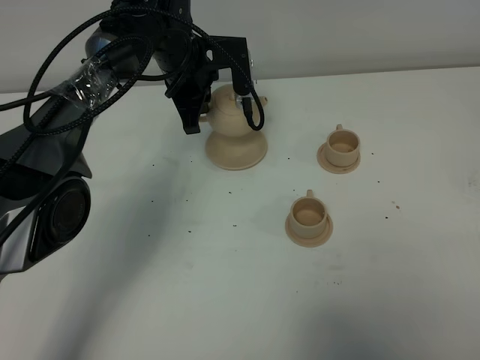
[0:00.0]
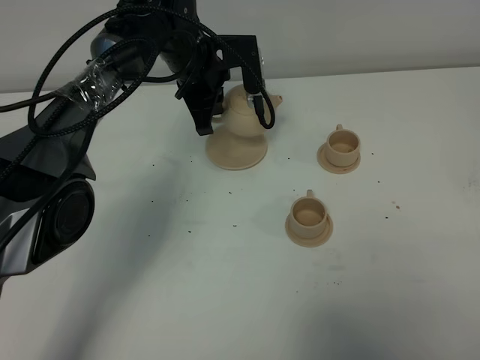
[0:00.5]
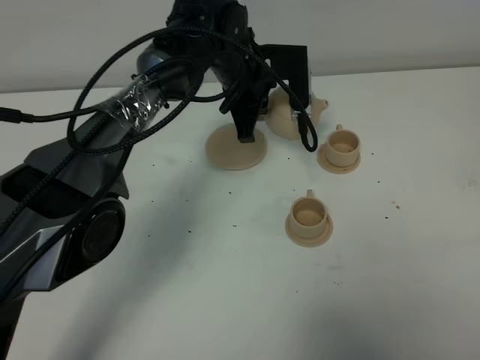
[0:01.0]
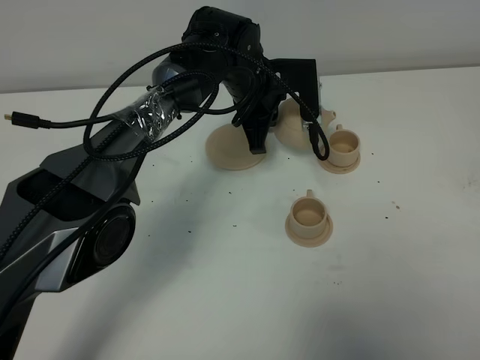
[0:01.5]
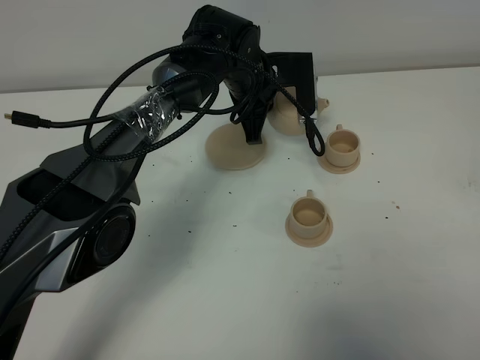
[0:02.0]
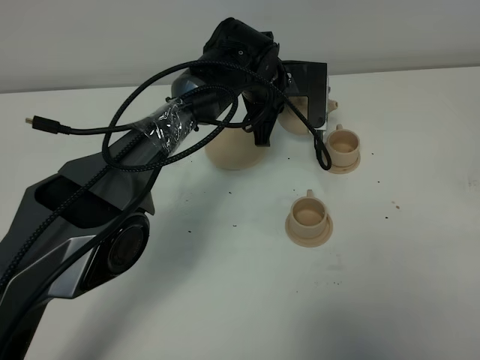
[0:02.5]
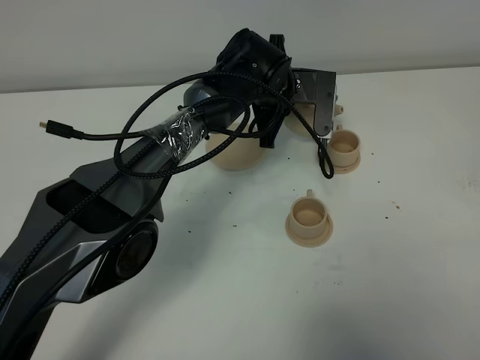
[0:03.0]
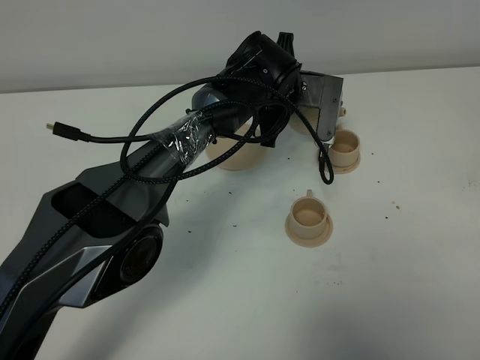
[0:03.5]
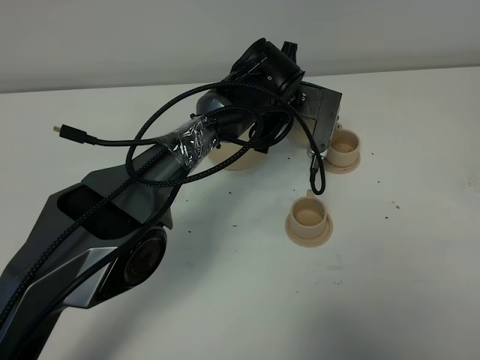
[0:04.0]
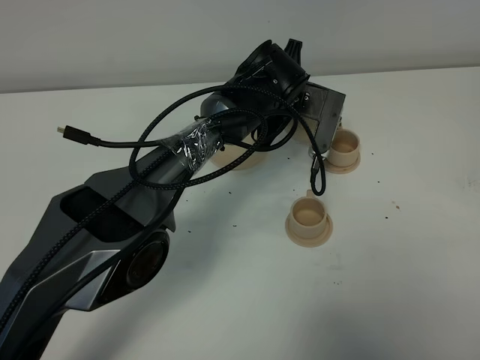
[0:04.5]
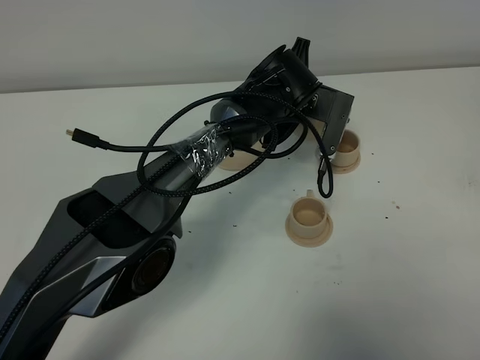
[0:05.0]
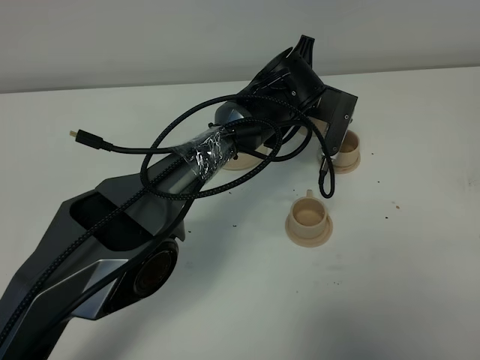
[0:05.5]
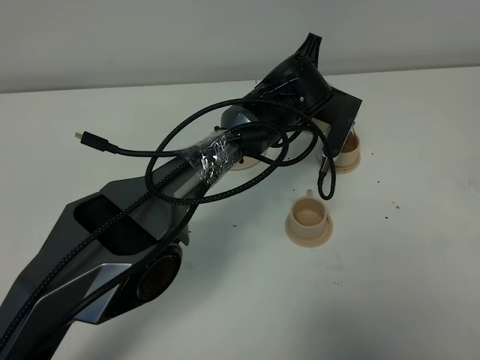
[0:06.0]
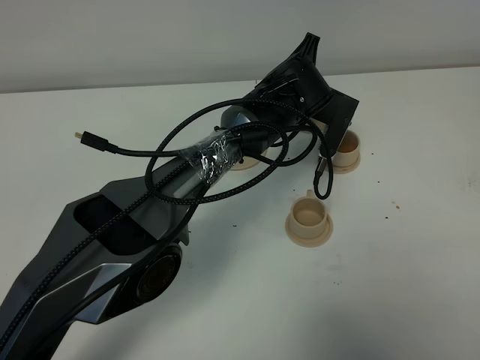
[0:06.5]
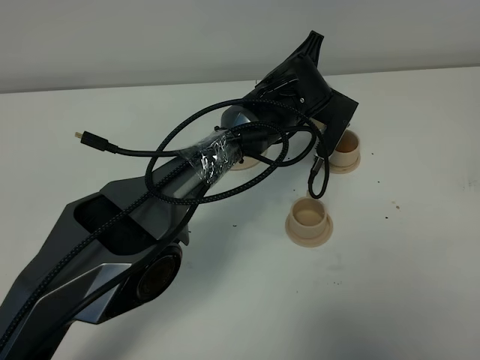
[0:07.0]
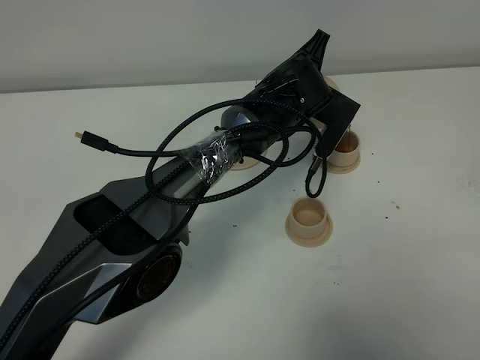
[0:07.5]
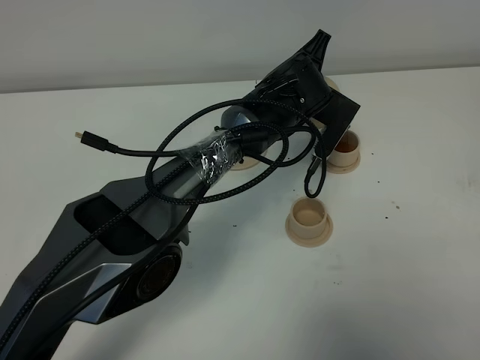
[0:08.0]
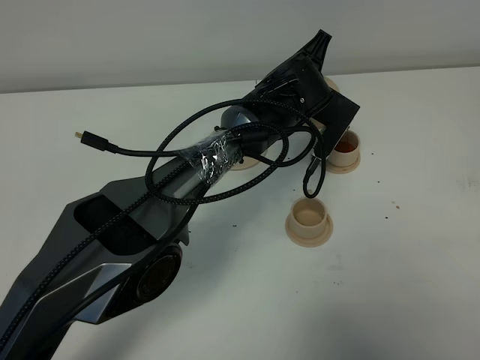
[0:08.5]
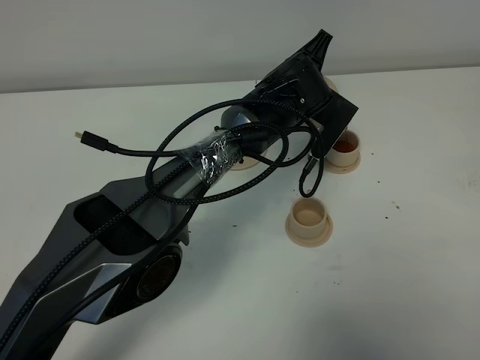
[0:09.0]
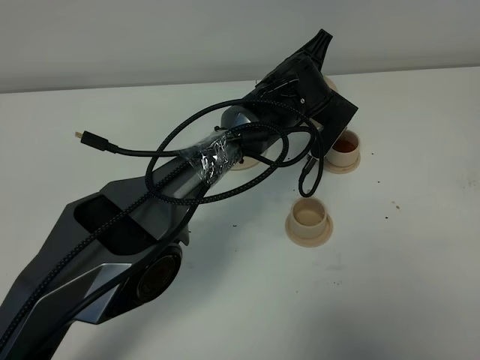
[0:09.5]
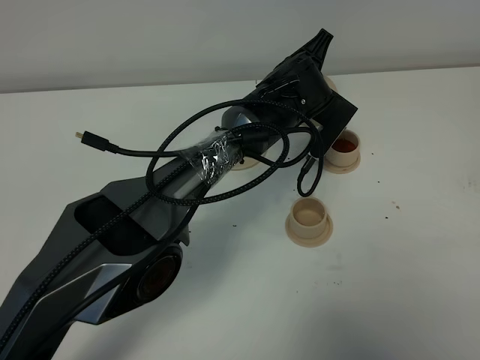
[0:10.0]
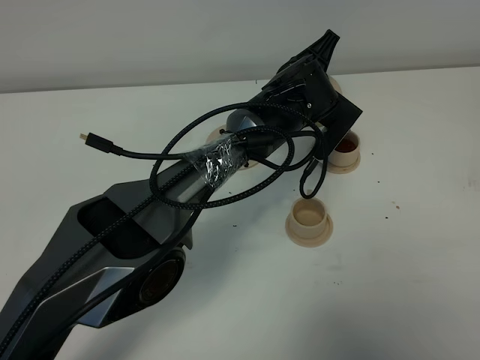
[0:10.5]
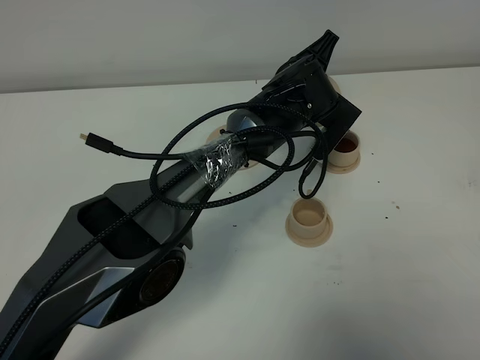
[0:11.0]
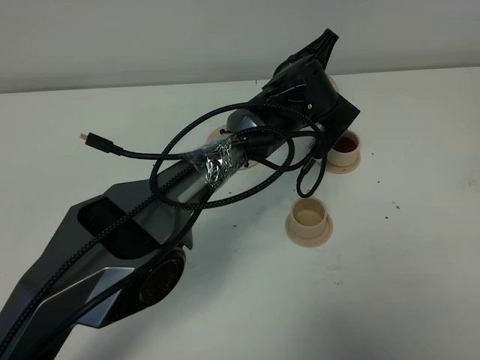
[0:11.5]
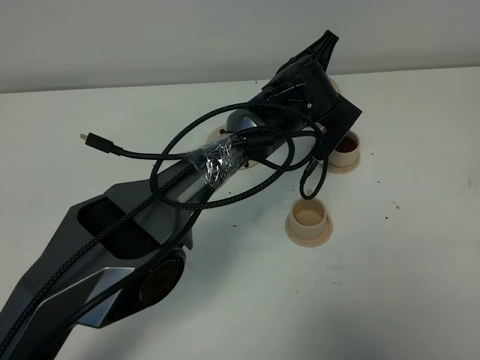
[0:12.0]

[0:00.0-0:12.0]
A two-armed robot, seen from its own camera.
Task of the whole recording: grasp the brown teapot and pour the tea into the two brown teacups one by one, put the brown teapot back in its original place.
0:00.0 to 0:02.0: The left gripper moves to the right, some 10 cm.
0:02.0 to 0:04.0: The left gripper shifts by about 5 cm.
0:04.0 to 0:06.0: The grippers stay close to where they were, moving slightly.
0:06.0 to 0:08.0: The grippers move only a little.
0:08.0 to 0:10.0: Neither gripper changes place.
0:10.0 to 0:12.0: The two grippers keep their place.

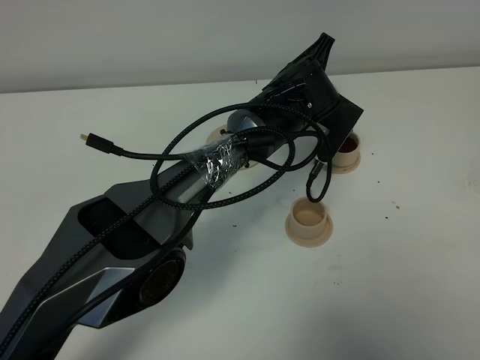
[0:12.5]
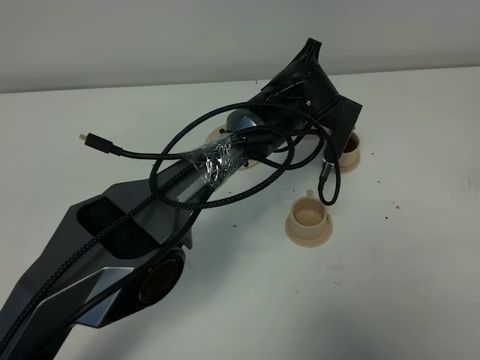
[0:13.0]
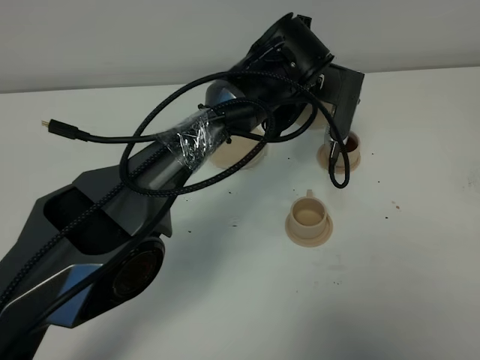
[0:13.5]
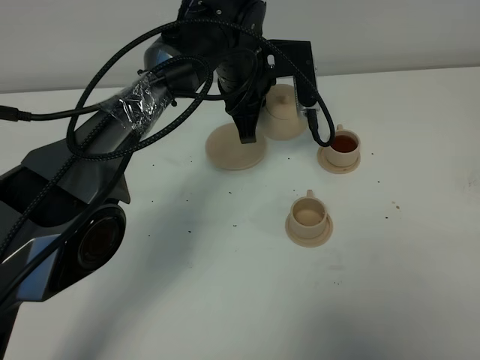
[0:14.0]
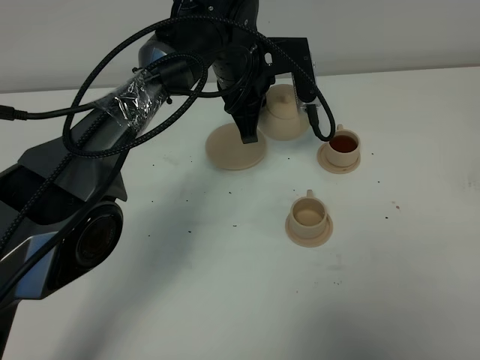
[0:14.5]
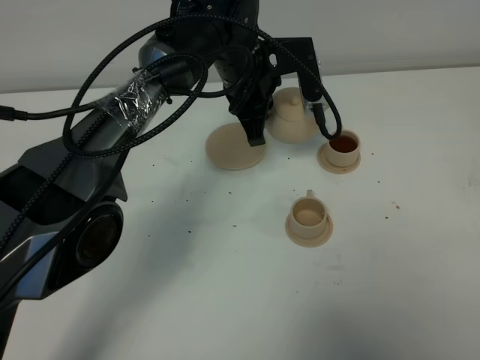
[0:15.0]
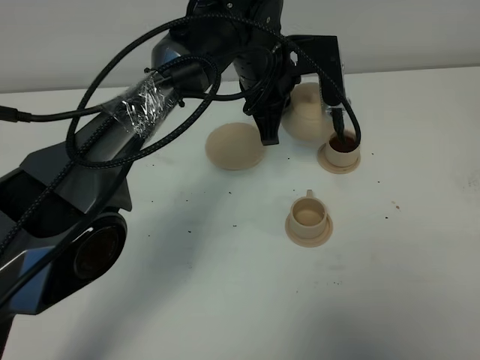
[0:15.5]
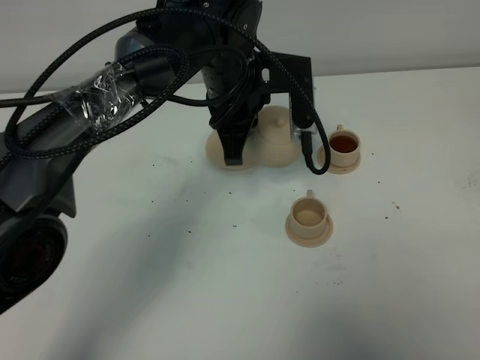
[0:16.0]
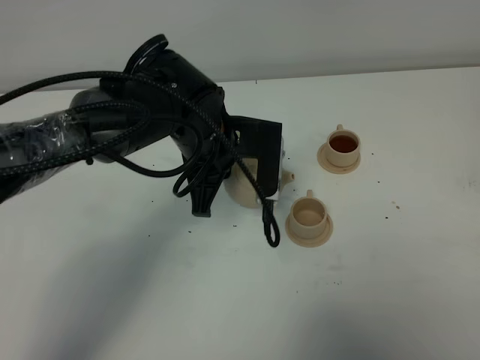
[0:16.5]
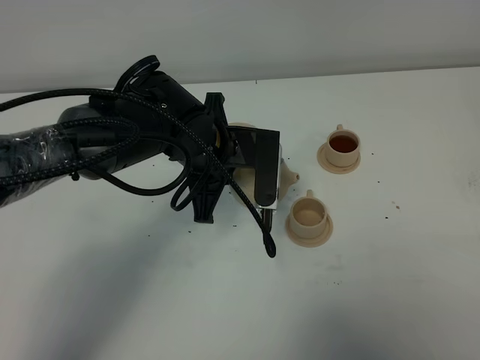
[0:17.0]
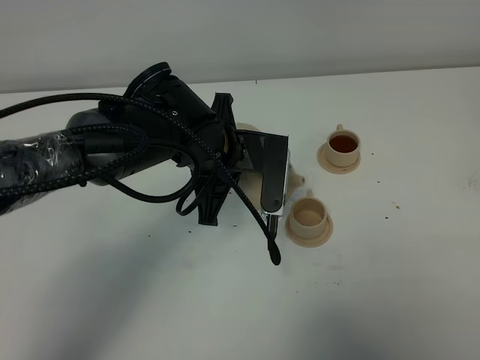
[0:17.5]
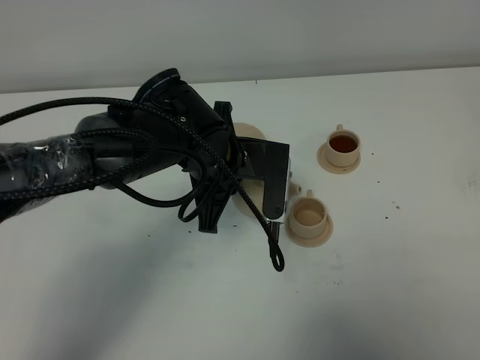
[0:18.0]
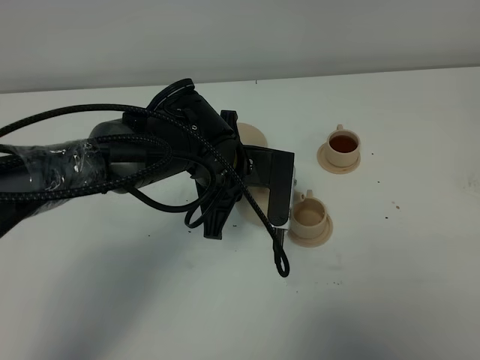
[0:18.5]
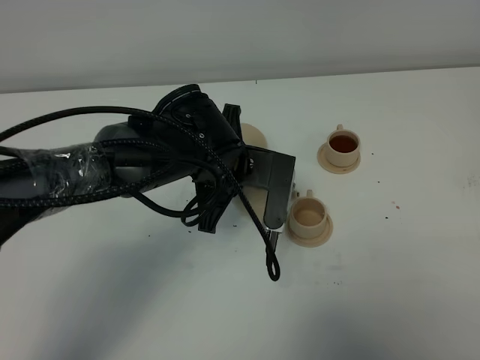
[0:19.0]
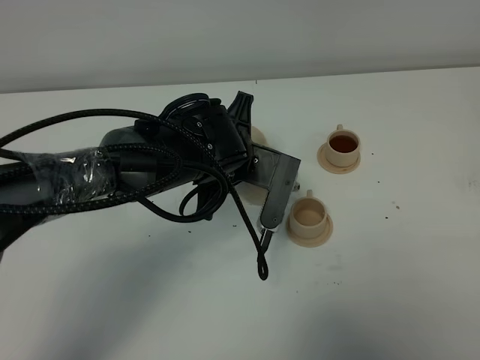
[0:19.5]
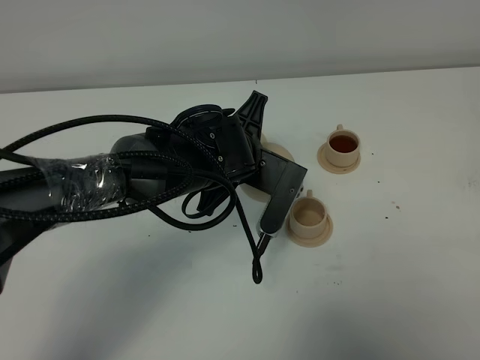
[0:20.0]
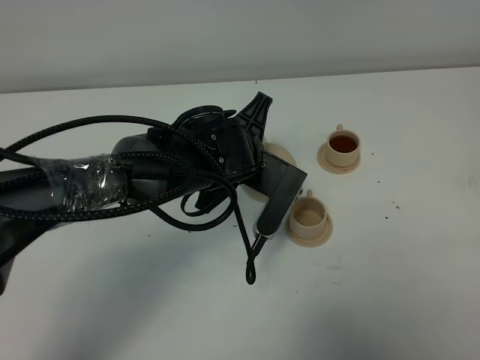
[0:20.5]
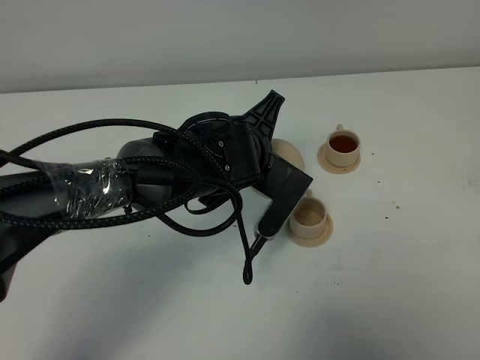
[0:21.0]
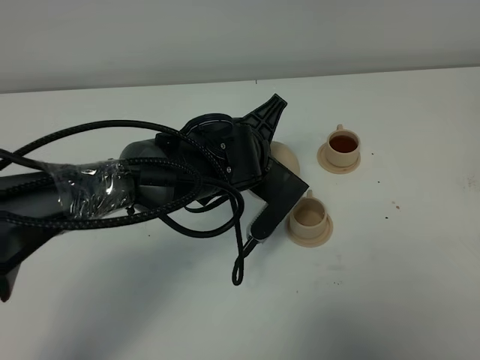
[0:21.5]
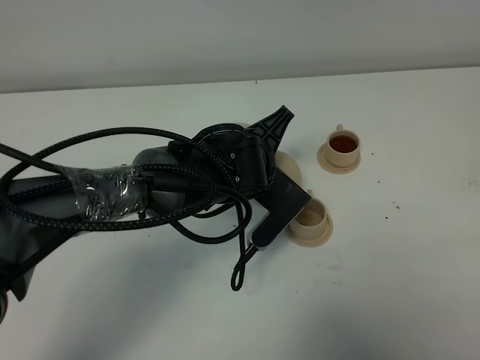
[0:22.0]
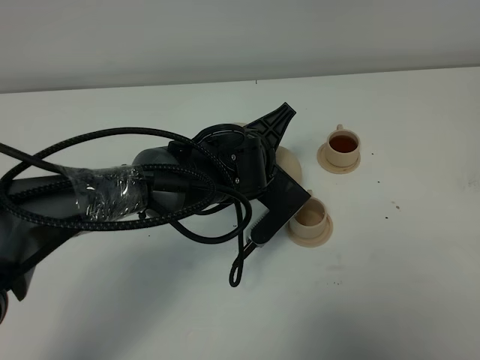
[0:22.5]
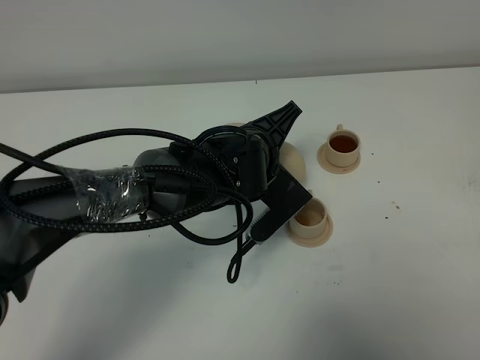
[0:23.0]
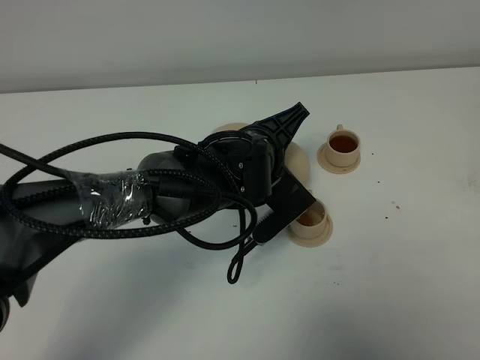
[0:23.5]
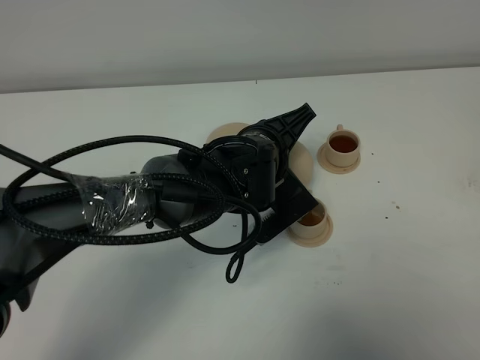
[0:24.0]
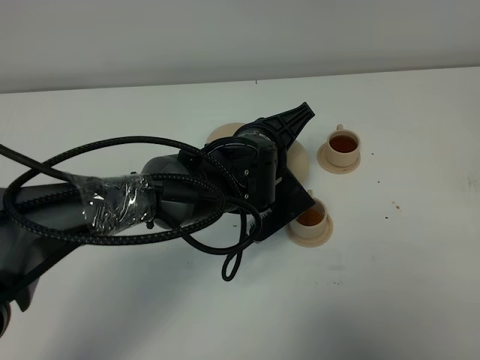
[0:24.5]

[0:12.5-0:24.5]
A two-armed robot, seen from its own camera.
Task of the whole recording: grasp the brown teapot and pour the tea into the two brown teacups one by one, put the brown teapot back in its original place.
0:12.5 to 0:14.5: The left gripper shifts approximately 10 cm to the left and upward.
0:14.5 to 0:16.5: The left gripper shifts approximately 10 cm backward.
0:16.5 to 0:18.5: There are only small adjustments of the grippers.
0:20.5 to 0:22.5: There are only small adjustments of the grippers.
0:22.5 to 0:24.5: There are only small adjustments of the grippers.

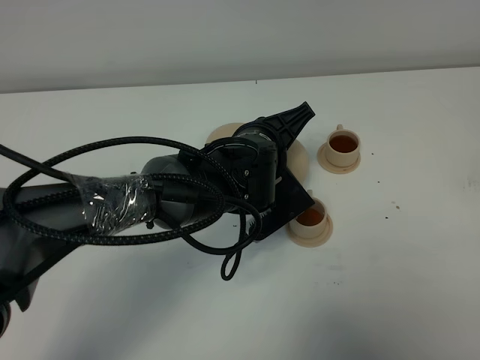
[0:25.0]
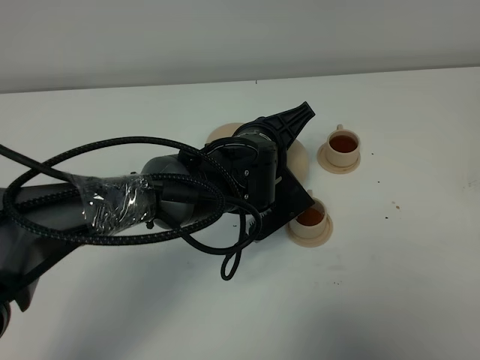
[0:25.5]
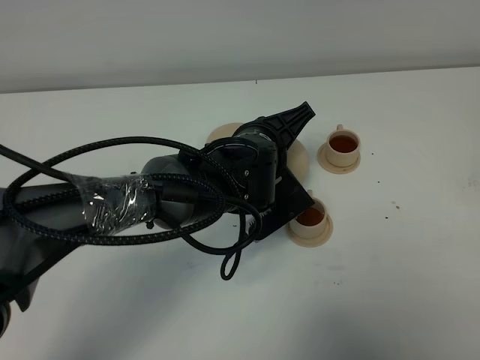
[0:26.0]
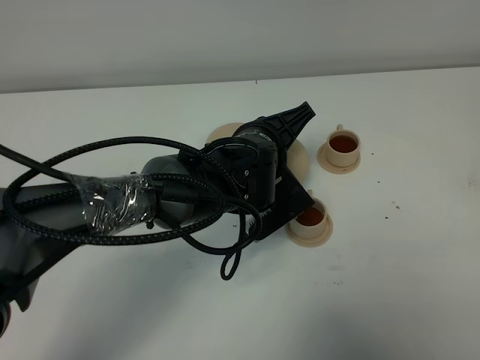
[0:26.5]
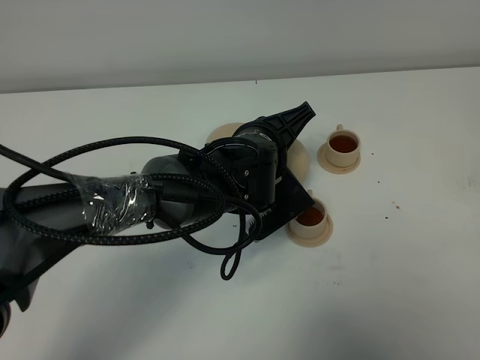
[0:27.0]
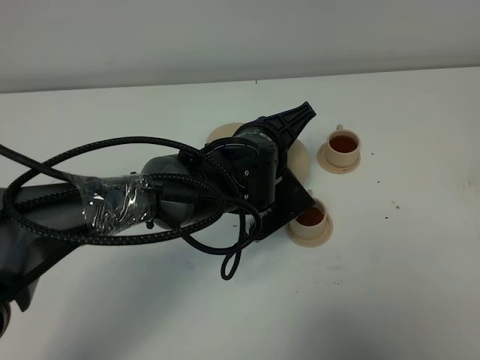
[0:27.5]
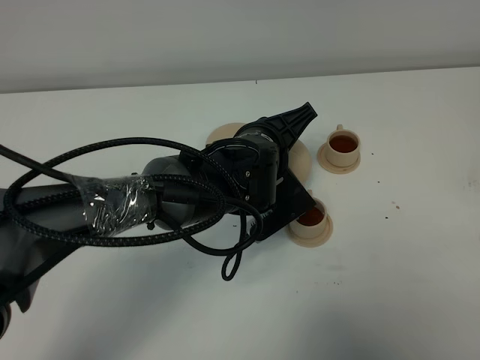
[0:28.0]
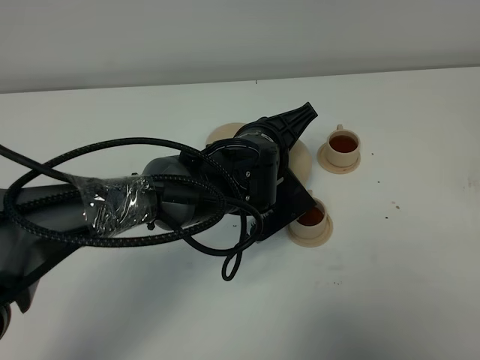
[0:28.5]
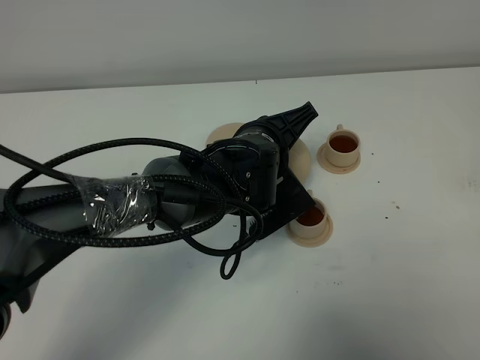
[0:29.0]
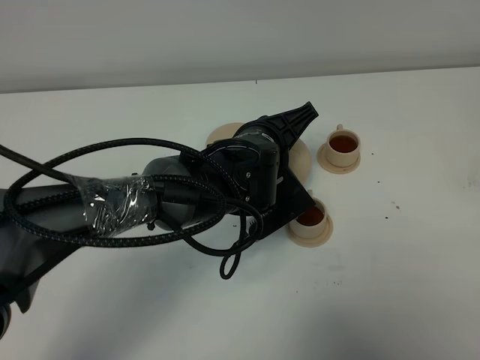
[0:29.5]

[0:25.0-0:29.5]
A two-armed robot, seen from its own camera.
Task of the whole recording: grasp the brown teapot and pour the tea into the two brown teacups one by one, put the brown teapot back in its original place.
0:25.0 to 0:29.5: Both grippers stay about where they are.
